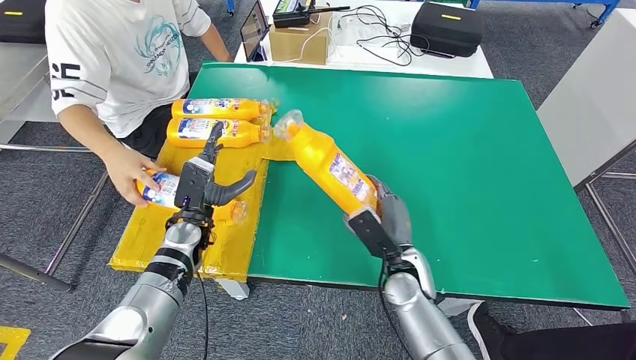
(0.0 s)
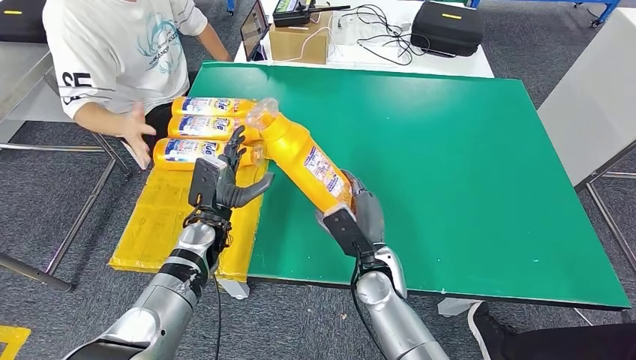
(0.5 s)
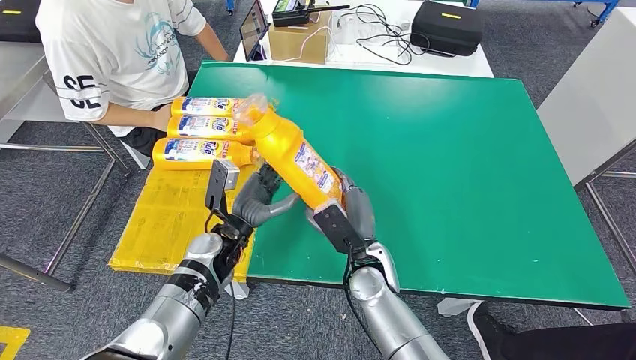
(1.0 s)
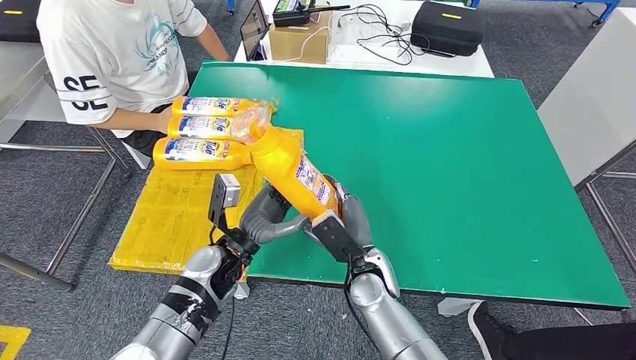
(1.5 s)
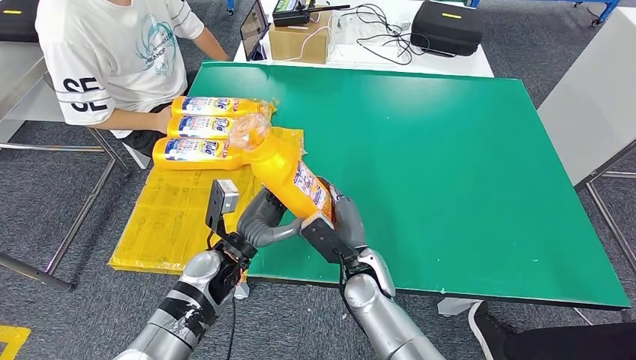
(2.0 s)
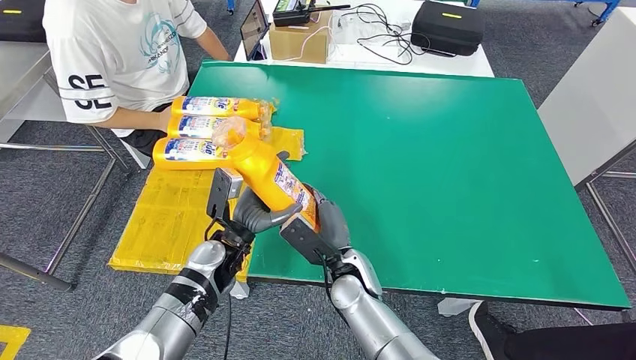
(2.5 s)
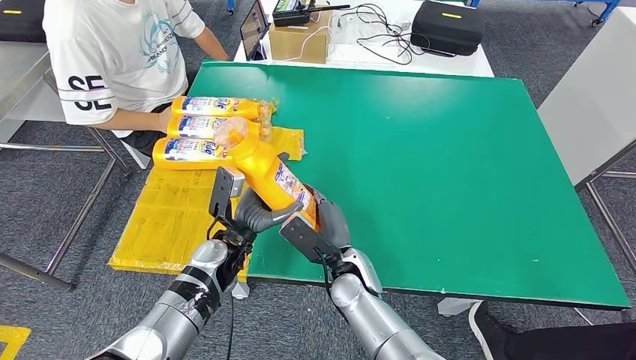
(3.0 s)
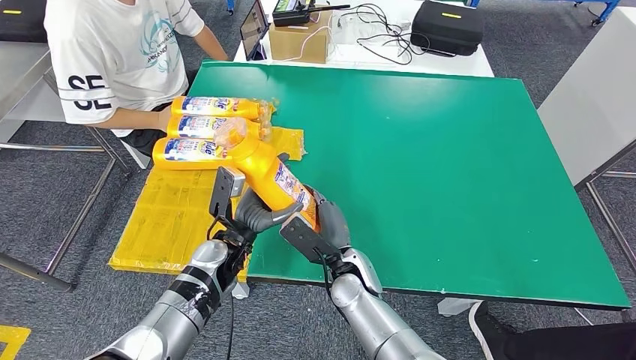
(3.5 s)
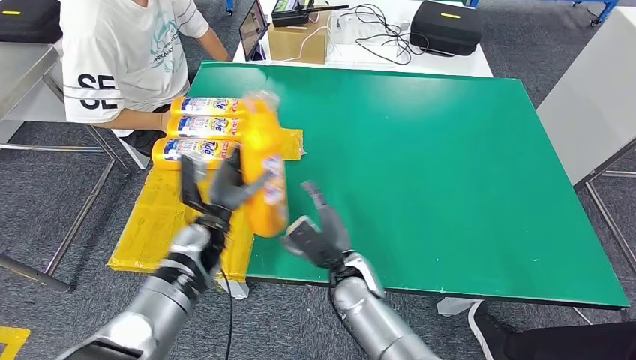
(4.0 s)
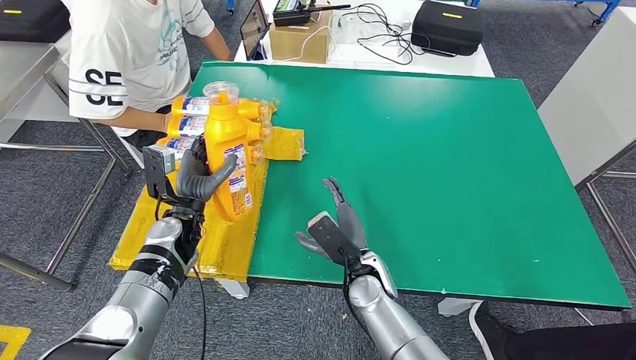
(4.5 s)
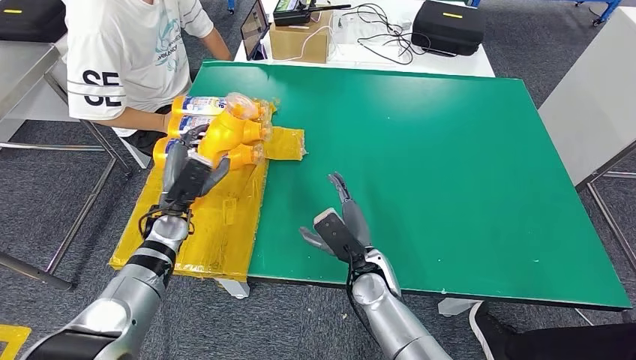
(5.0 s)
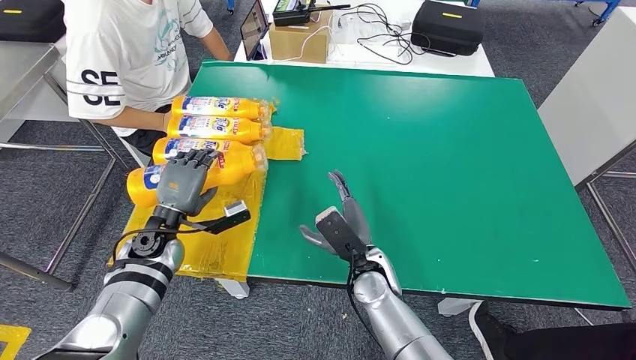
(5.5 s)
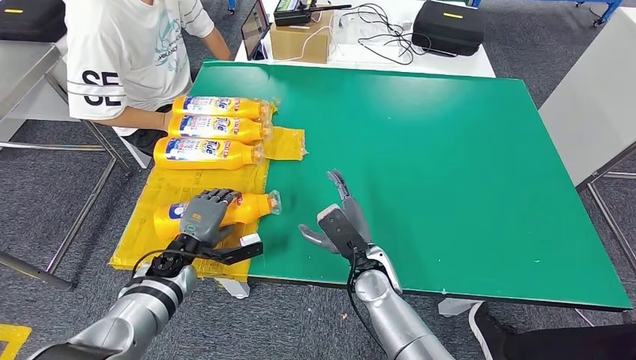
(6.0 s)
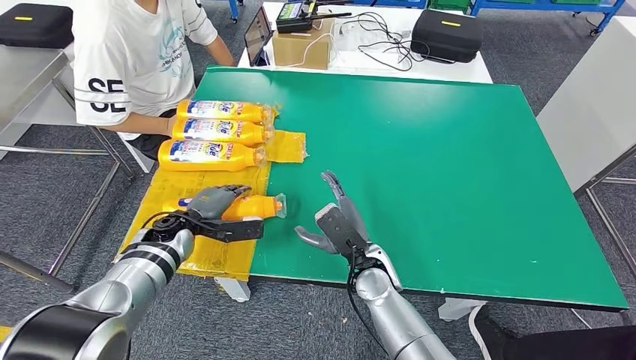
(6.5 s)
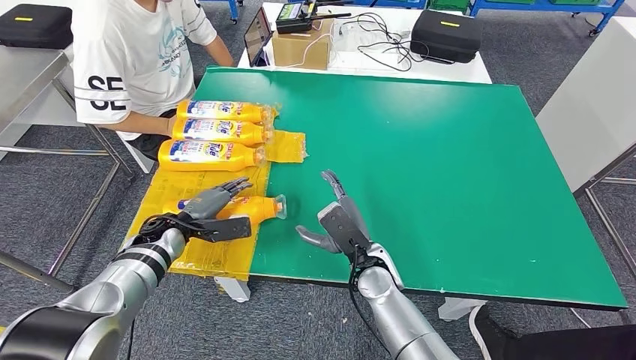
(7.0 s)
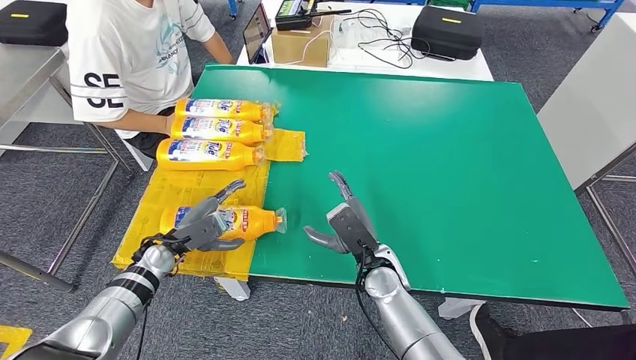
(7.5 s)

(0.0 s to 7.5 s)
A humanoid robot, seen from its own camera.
Step, 1.5 s - 7.5 s: Flip the fast-moving consumer goods bottle to the front side.
2.0 s - 4.0 s: The left hand moves approximately 5 cm.
4.0 s - 5.5 s: The left hand heads to the left, covering roughly 10 cm.
